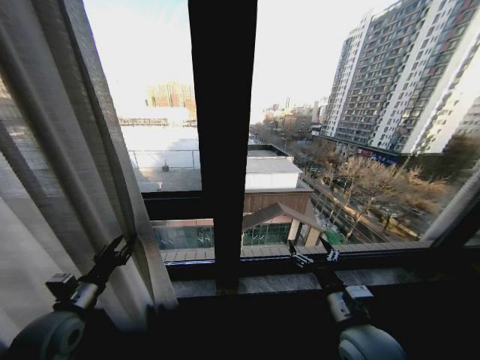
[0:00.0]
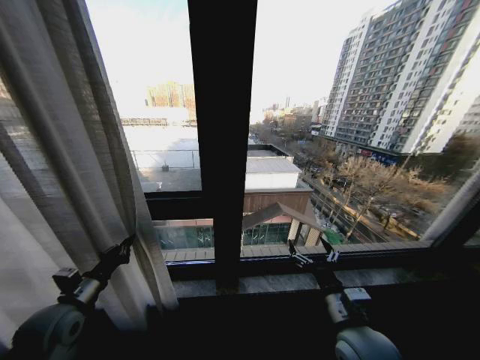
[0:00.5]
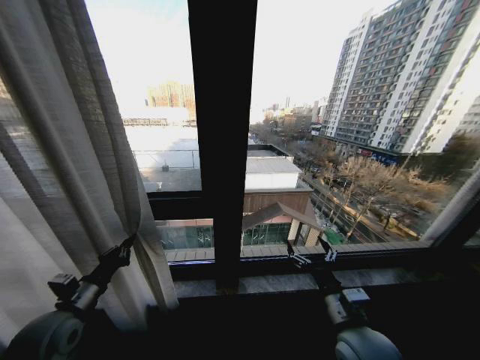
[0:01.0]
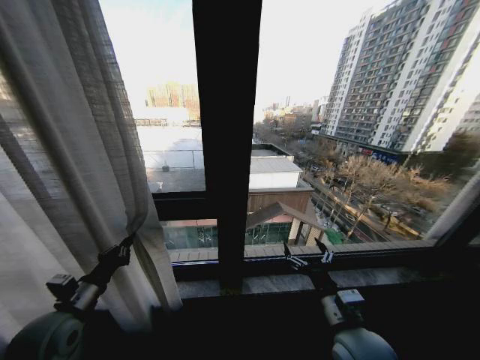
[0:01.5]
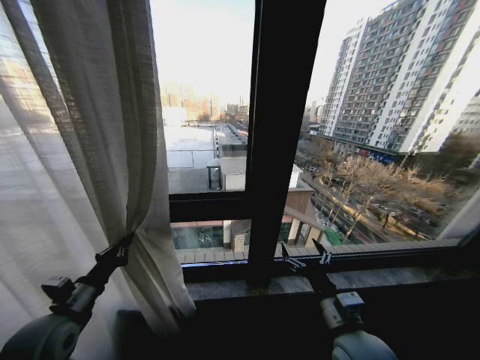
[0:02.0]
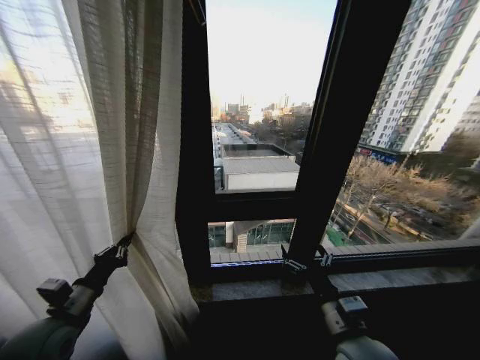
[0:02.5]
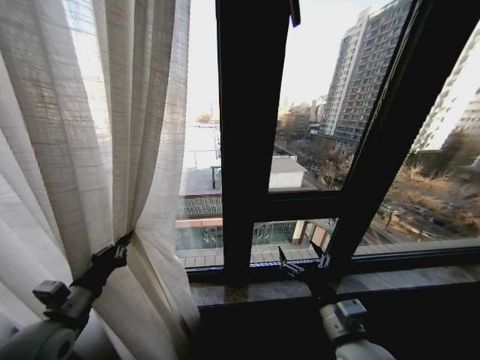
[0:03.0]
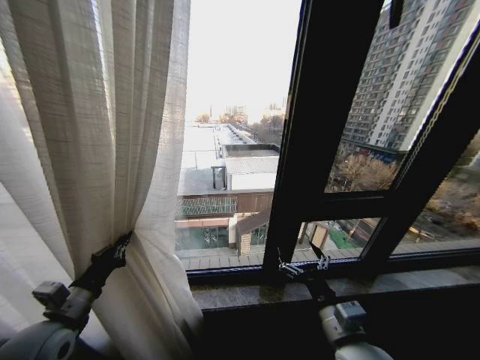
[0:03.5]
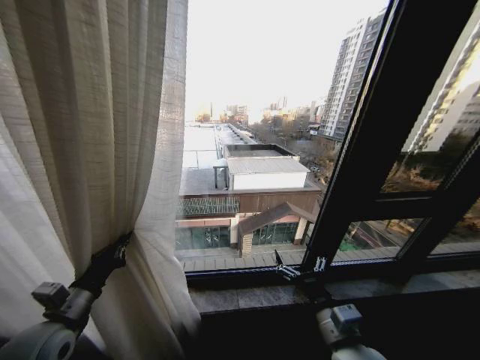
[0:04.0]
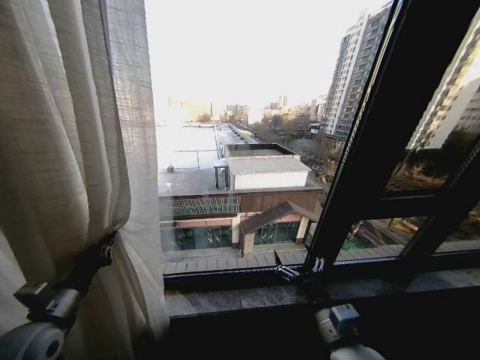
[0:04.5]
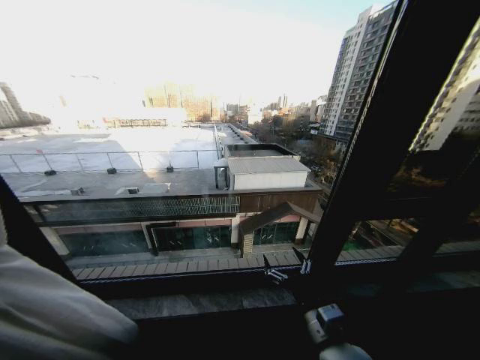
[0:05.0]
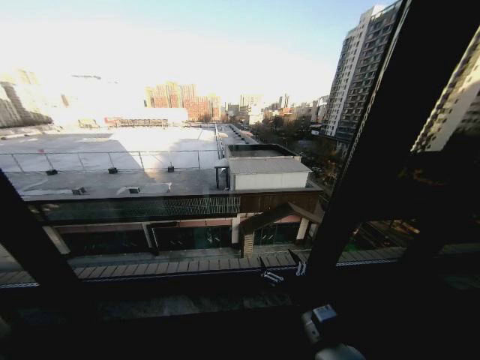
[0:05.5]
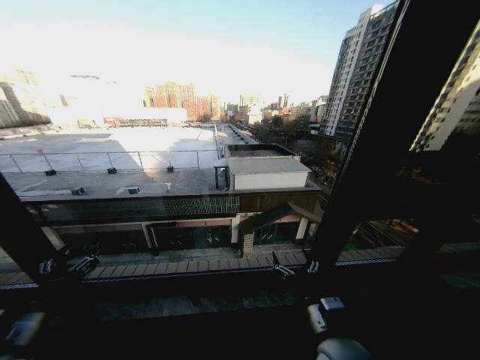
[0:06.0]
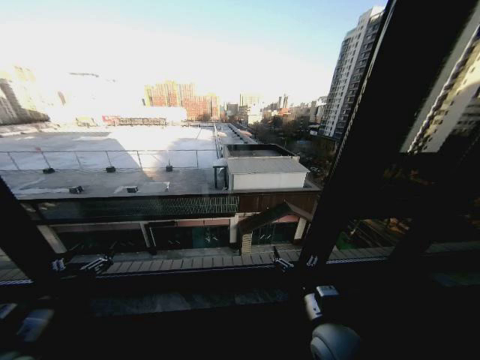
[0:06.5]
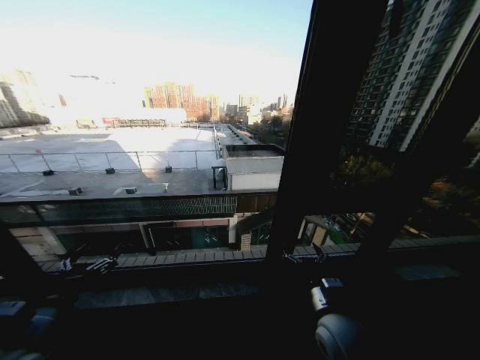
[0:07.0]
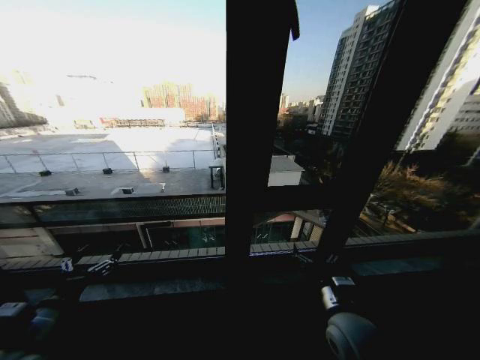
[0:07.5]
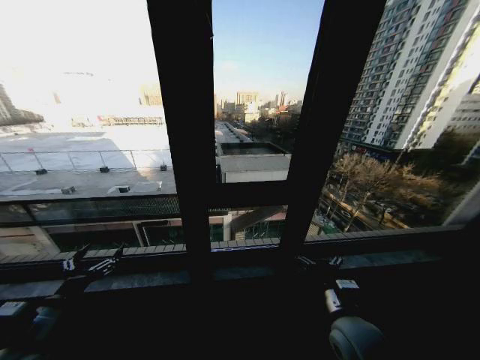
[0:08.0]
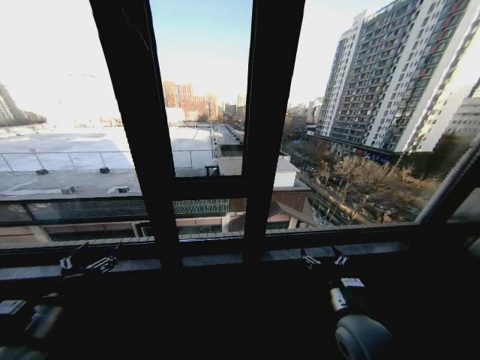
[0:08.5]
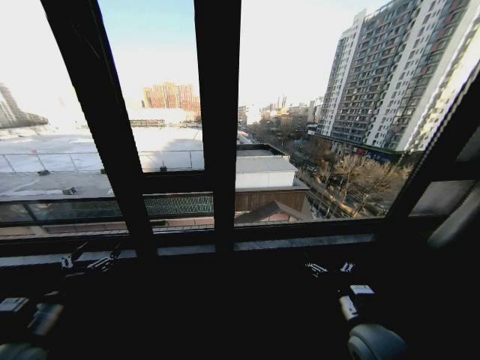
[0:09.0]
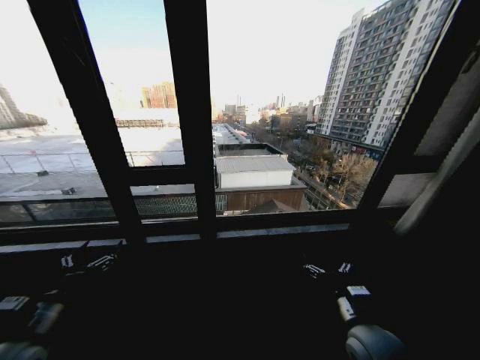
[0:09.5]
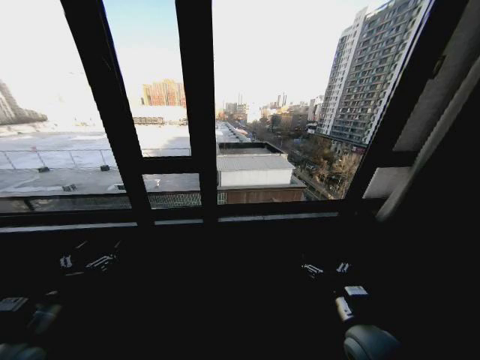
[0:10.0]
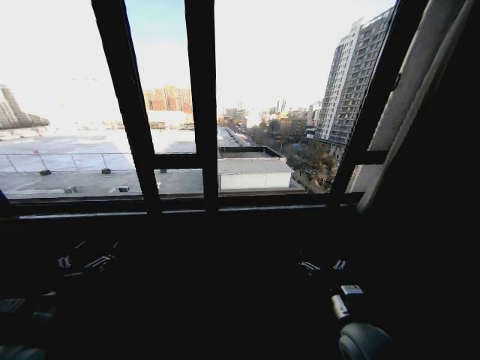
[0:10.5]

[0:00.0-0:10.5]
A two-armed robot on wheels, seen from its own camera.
Task of the whole recording: Open the curtains by pulling them apart, changing their state from closed to fully open.
0:00.0 to 0:02.0: The left gripper closes its fingers.
0:04.0 to 0:06.5: The left gripper goes to the left and returns, about 20 cm each way, and opens.
0:06.5 to 0:08.5: The right gripper shifts approximately 5 cm to the right.

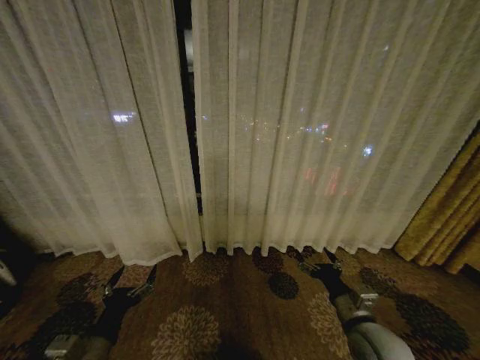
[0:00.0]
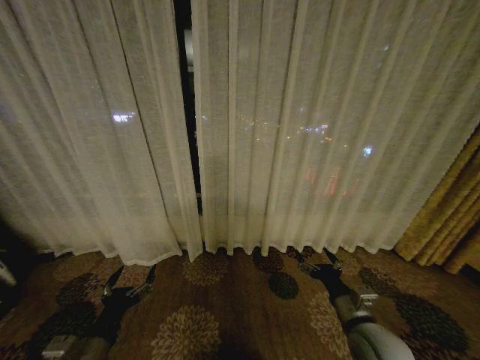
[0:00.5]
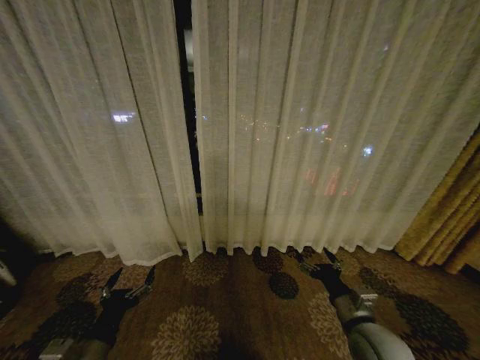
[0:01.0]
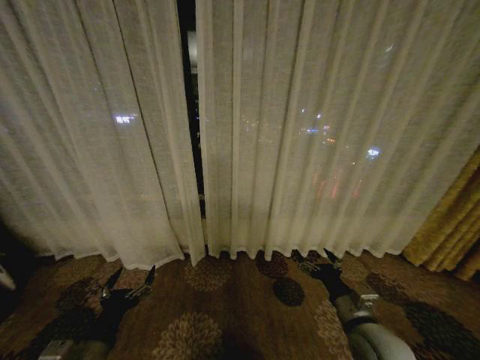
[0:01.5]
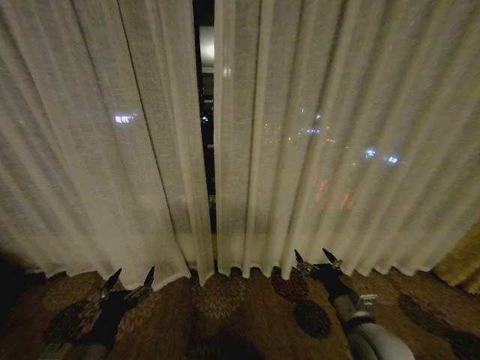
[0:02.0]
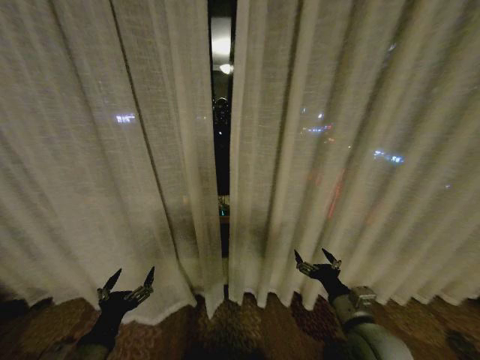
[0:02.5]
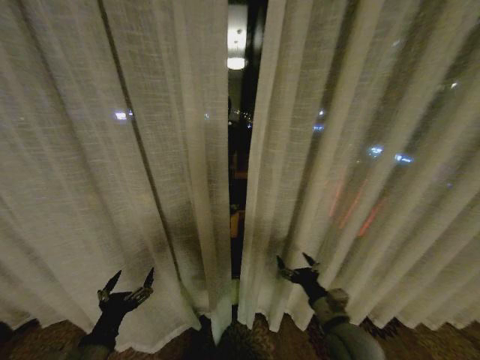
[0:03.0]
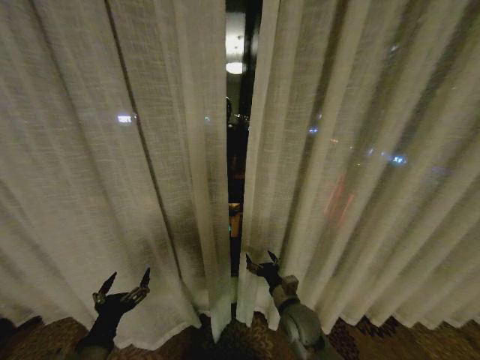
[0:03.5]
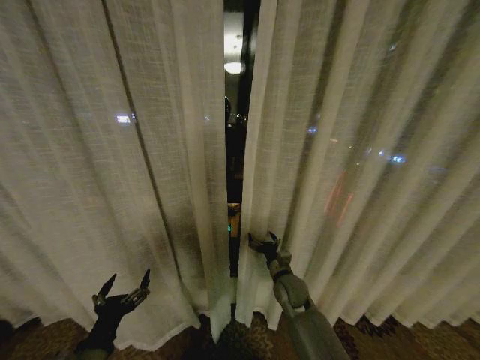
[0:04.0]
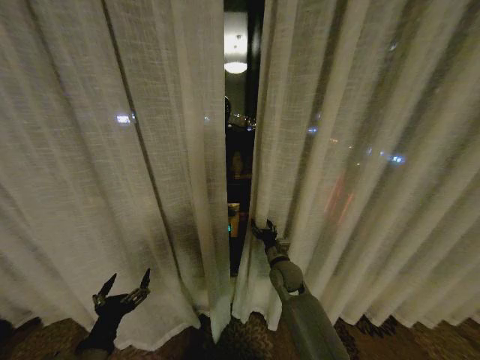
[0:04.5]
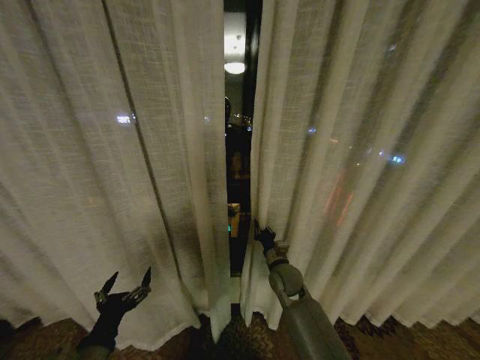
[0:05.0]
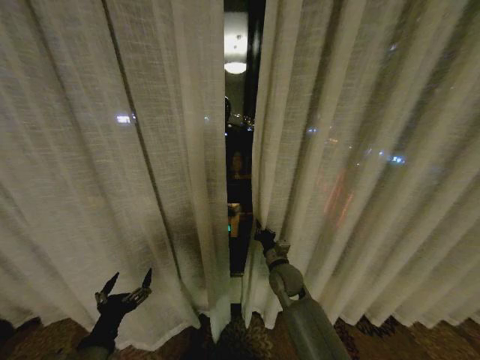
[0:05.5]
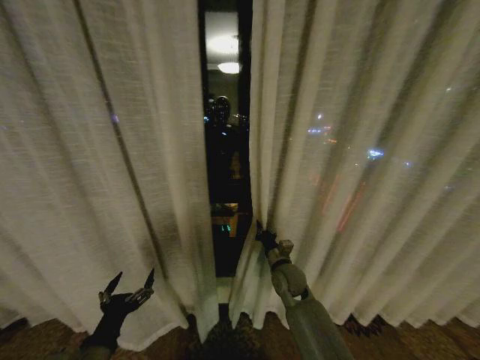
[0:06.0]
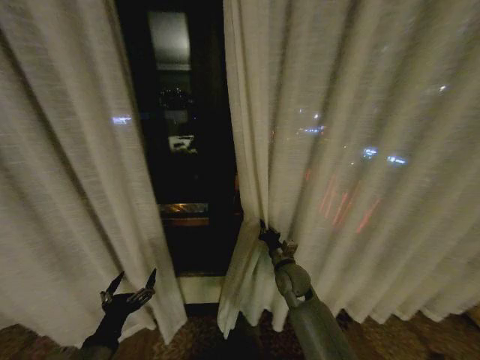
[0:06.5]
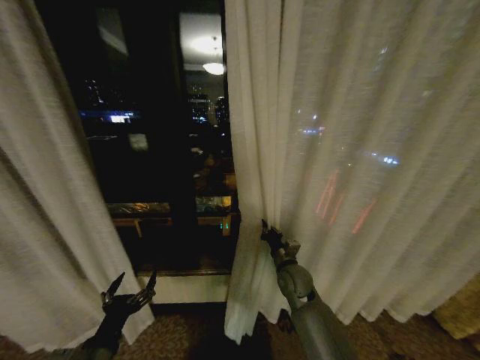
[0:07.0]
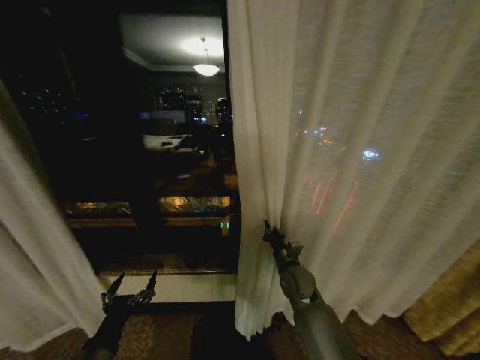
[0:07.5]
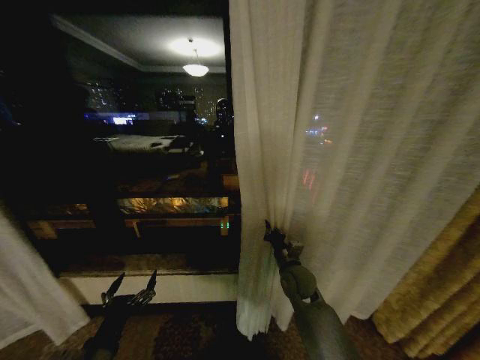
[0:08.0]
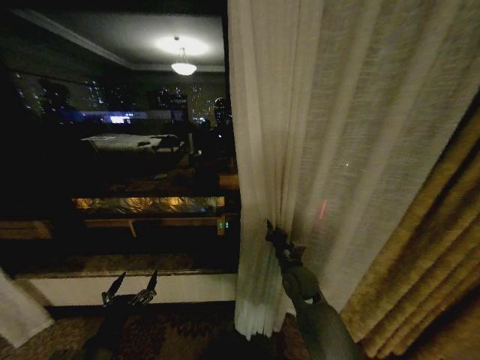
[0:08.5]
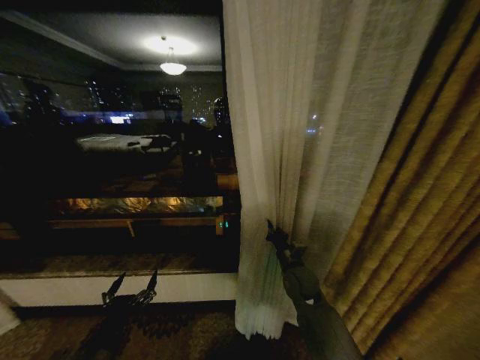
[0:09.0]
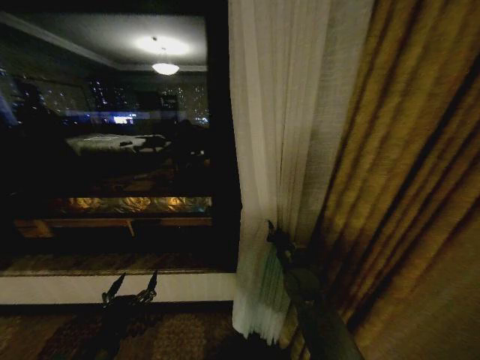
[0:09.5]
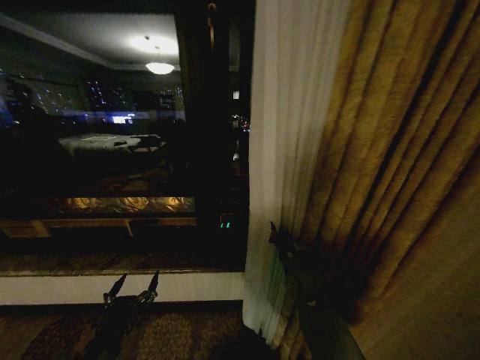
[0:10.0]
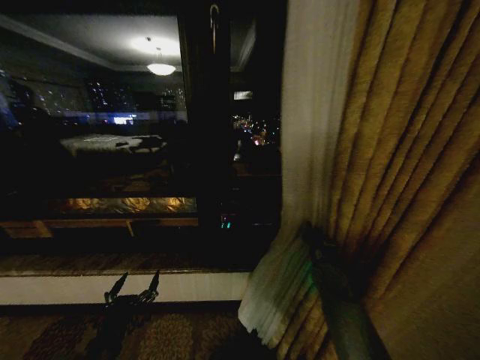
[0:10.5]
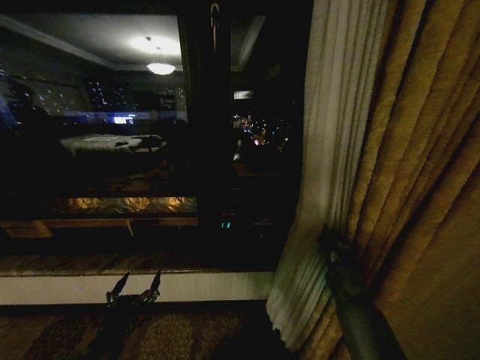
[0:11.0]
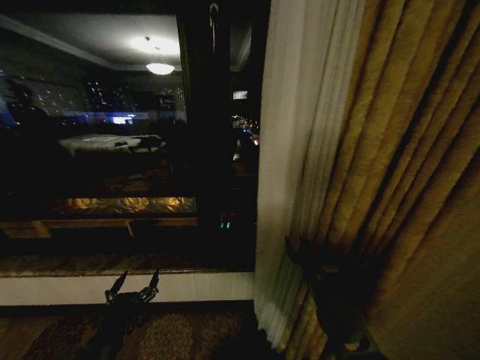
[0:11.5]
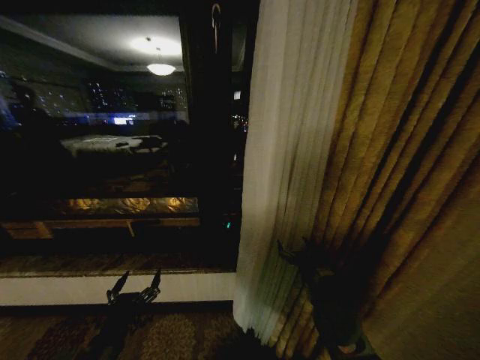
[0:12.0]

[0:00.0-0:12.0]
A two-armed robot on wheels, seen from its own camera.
Task of the whole recording: Open the curtains by pulling them apart, changing their state from closed to fully open.
0:02.0 to 0:04.0: The right gripper shifts some 20 cm forward, to the left and downward.
0:04.0 to 0:06.0: The right gripper closes.
0:10.0 to 0:12.0: The right gripper goes roughly 10 cm backward, moves about 15 cm to the right and comes back, and opens its fingers.

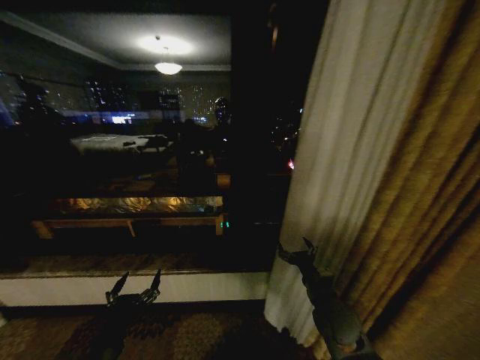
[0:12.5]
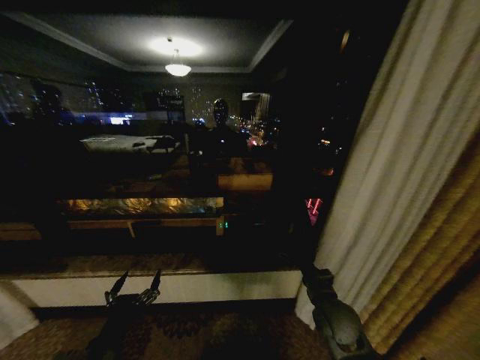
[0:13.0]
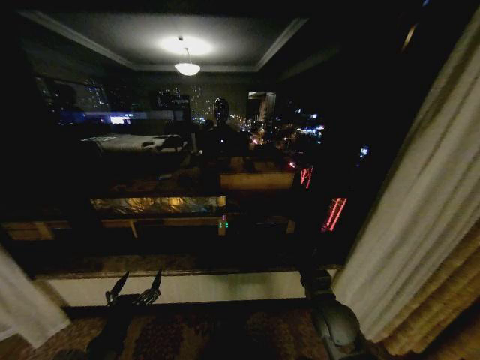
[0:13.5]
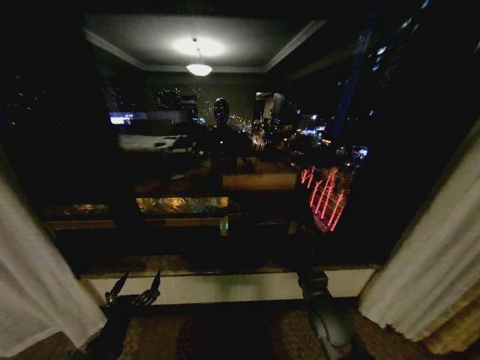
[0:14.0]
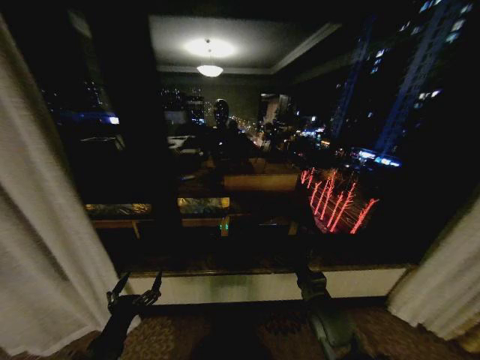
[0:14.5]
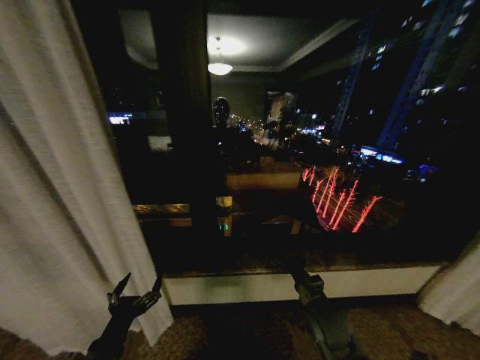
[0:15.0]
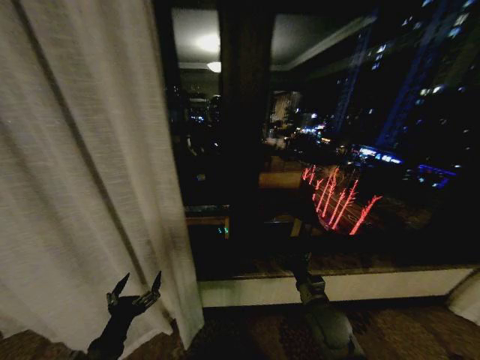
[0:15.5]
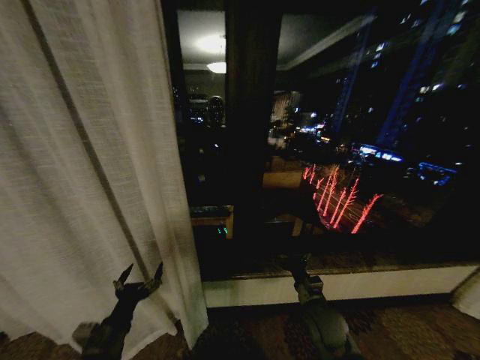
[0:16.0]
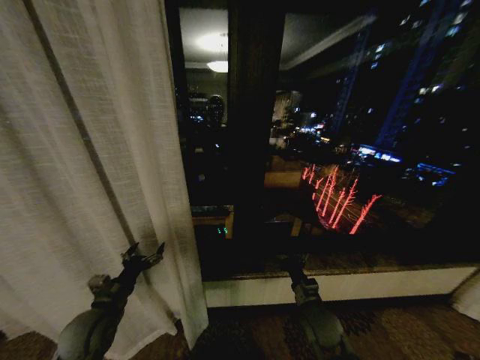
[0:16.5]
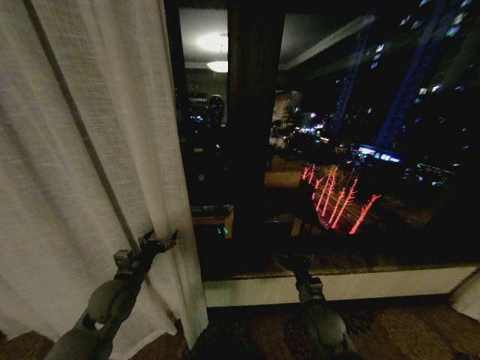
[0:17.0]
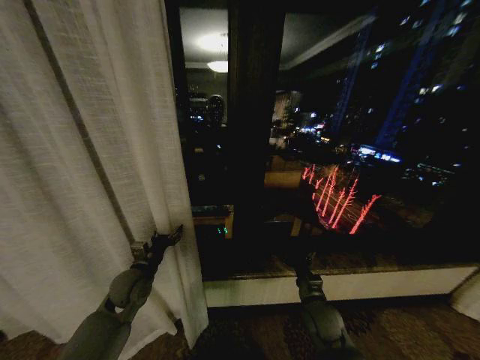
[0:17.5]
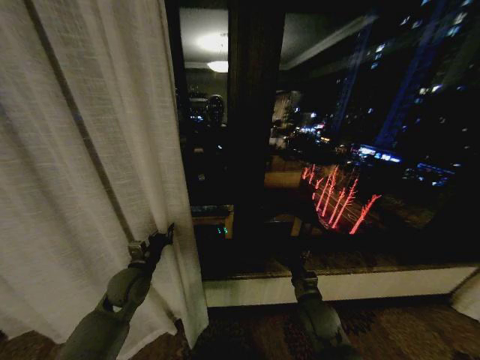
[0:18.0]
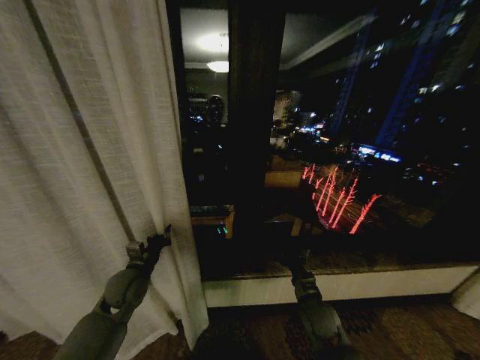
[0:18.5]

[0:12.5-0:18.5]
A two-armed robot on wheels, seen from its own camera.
Task of the whole recording: Open the curtains by pulling them apart, changing their state from closed to fully open.
0:14.5 to 0:16.5: The left gripper is displaced forward by some 15 cm.
0:16.5 to 0:18.5: The left gripper travels forward by about 10 cm, and closes its fingers.
